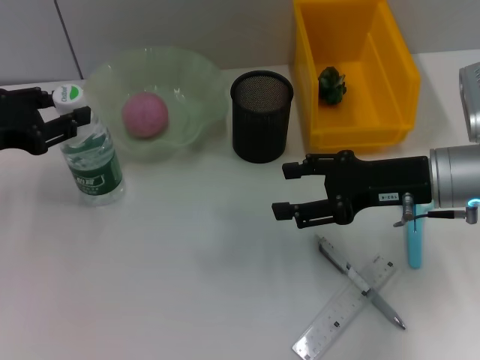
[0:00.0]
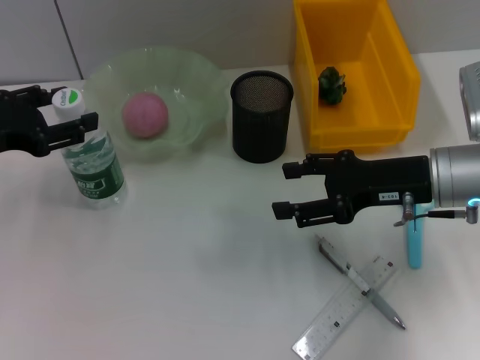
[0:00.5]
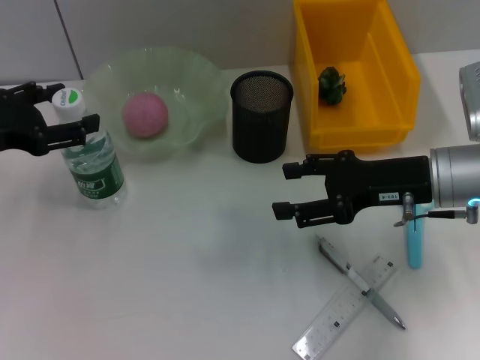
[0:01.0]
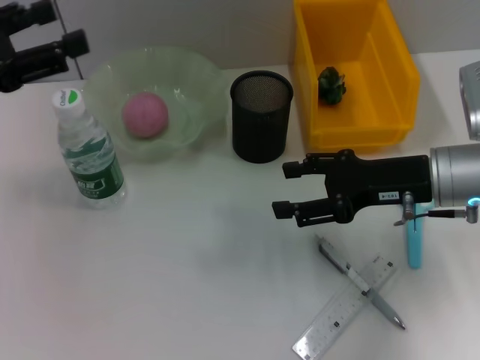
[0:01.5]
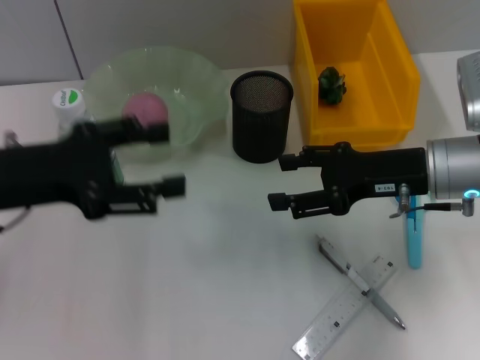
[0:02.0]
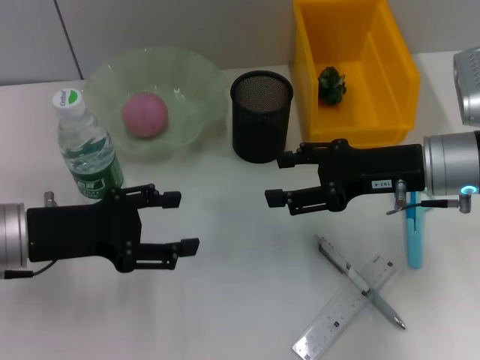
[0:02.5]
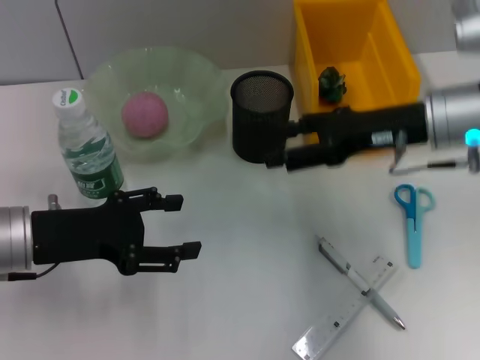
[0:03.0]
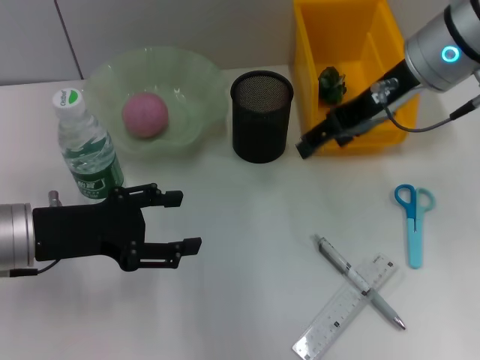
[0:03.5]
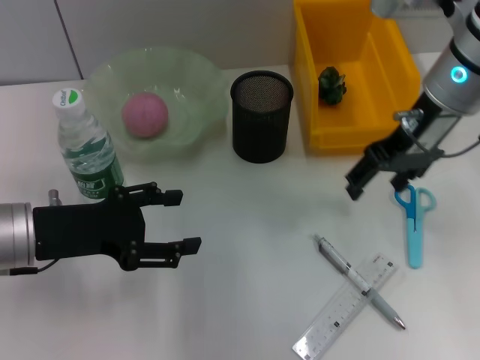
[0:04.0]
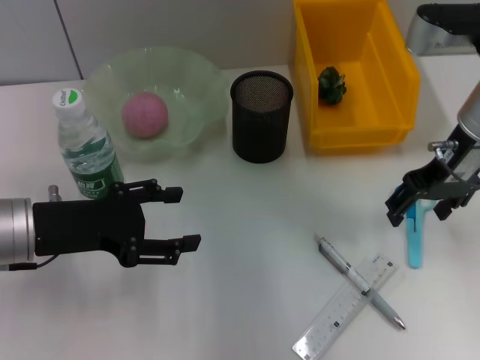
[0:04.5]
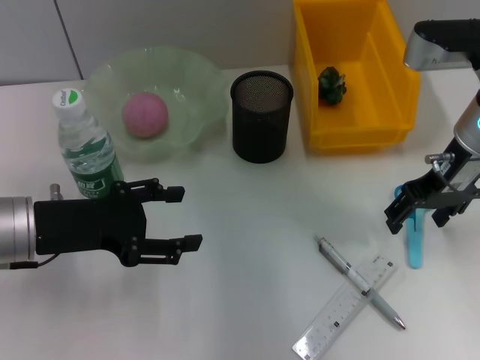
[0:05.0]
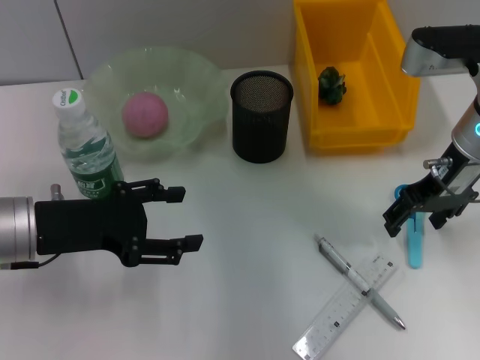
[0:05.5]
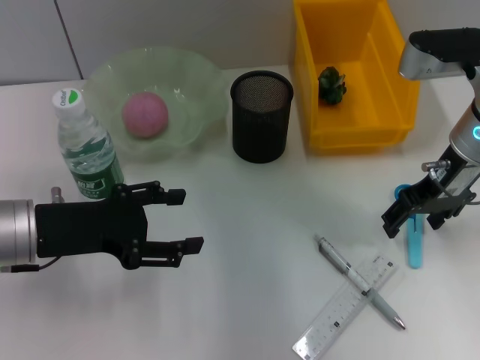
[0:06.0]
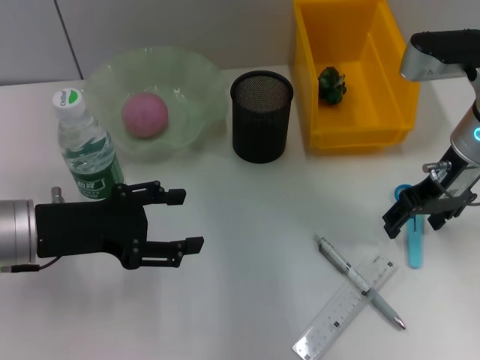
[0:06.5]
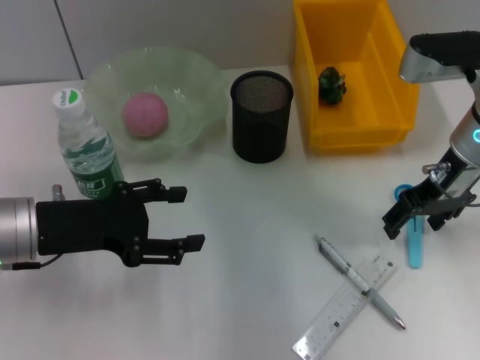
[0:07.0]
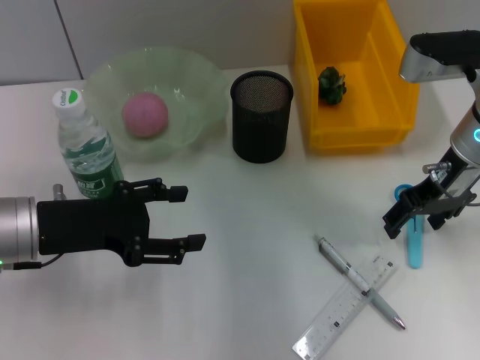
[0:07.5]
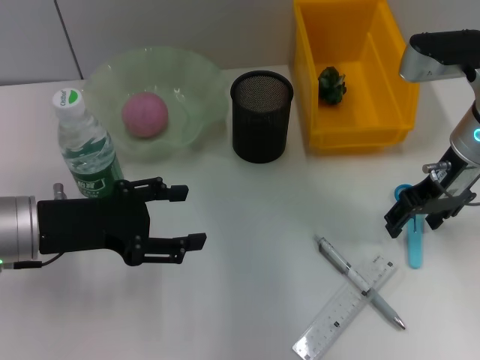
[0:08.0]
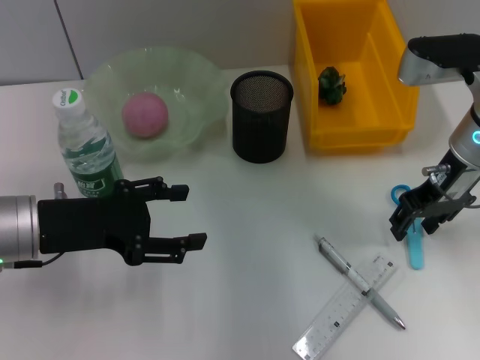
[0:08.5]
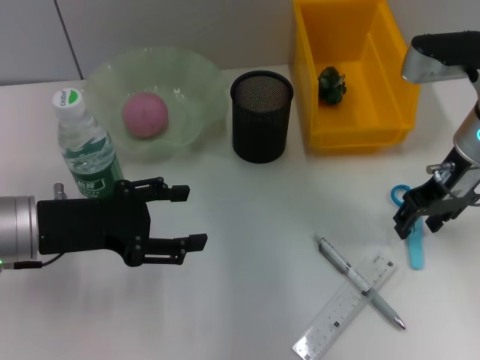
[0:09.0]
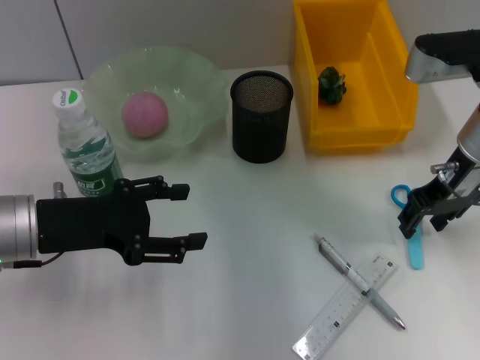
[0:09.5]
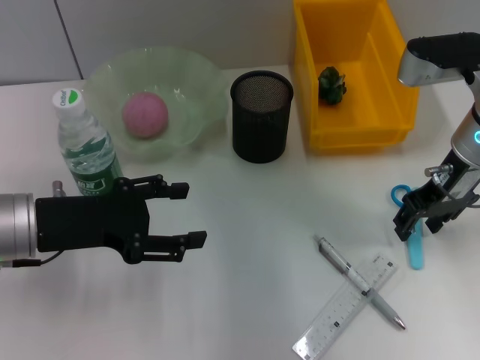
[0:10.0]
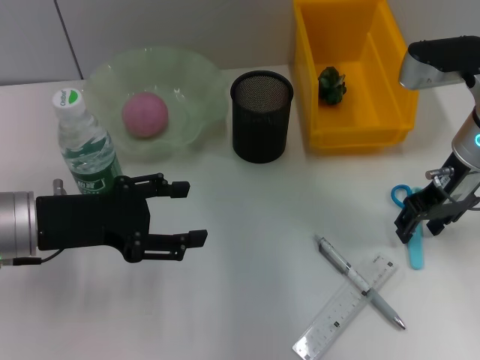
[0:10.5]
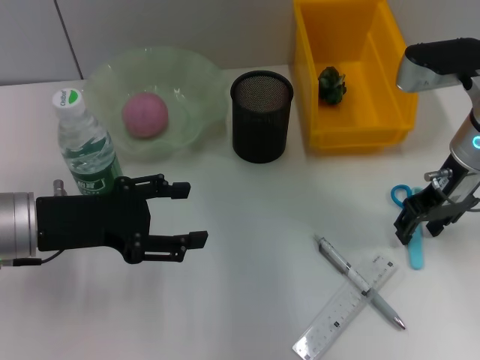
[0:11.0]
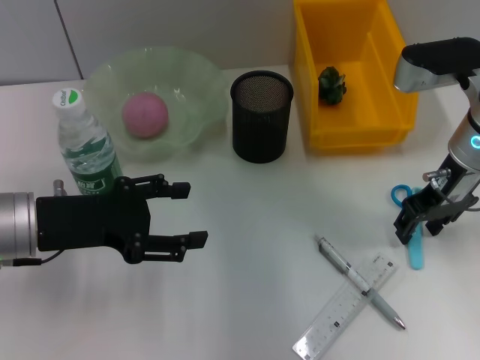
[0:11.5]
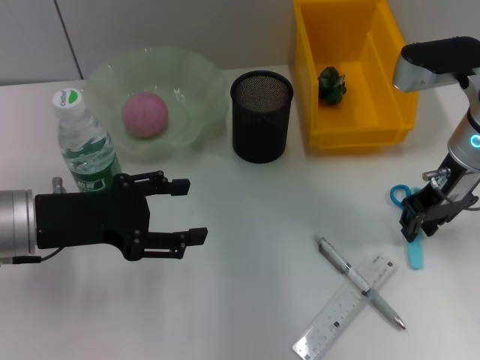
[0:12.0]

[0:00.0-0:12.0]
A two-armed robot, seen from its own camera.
0:00.0 to 0:02.0: The left gripper goes about 5 cm to the right, and opens.
0:02.0 to 0:04.0: The right gripper moves upward and forward, some 10 cm. The left gripper shifts some 5 cm downward.
0:04.0 to 0:06.0: The right gripper travels downward by roughly 5 cm.
0:06.0 to 0:12.0: Both grippers stay put.

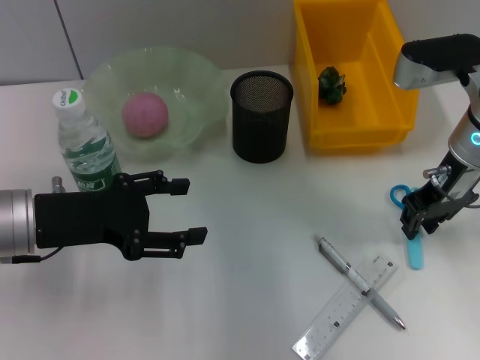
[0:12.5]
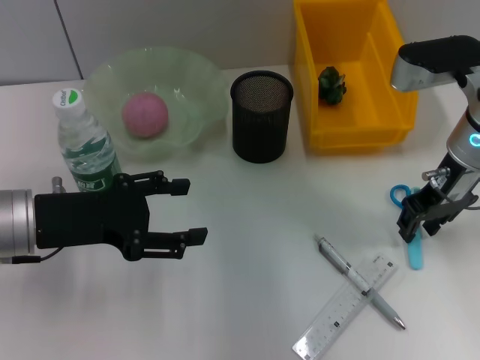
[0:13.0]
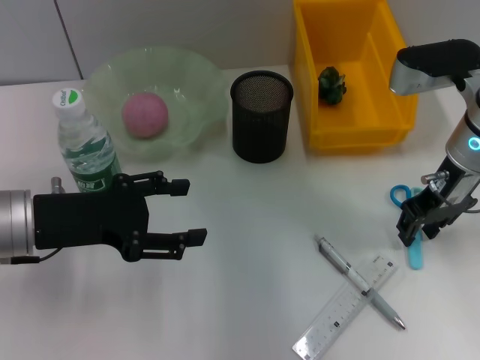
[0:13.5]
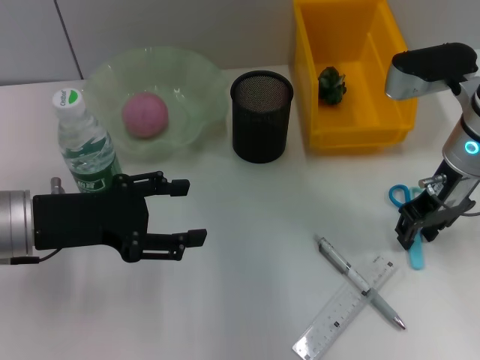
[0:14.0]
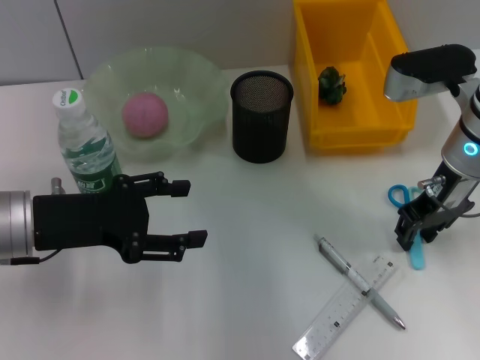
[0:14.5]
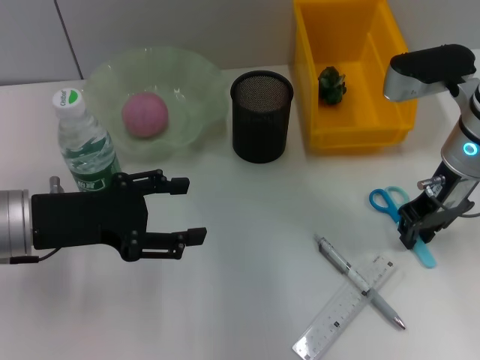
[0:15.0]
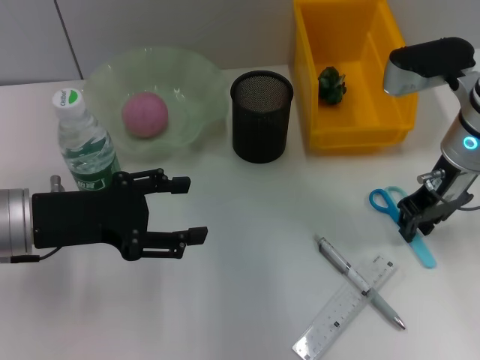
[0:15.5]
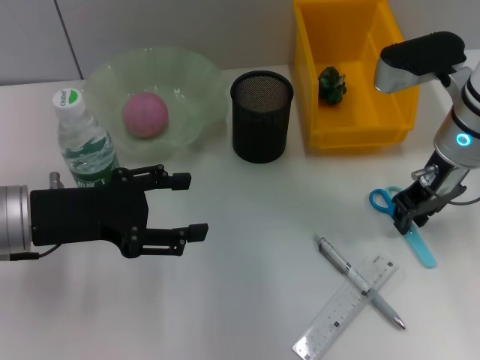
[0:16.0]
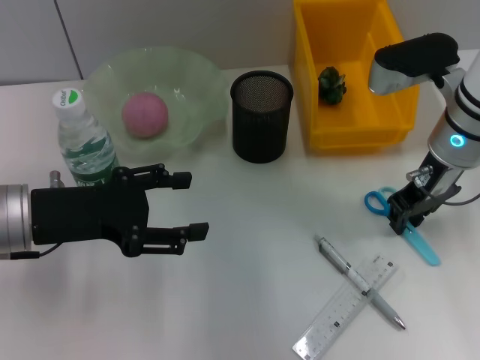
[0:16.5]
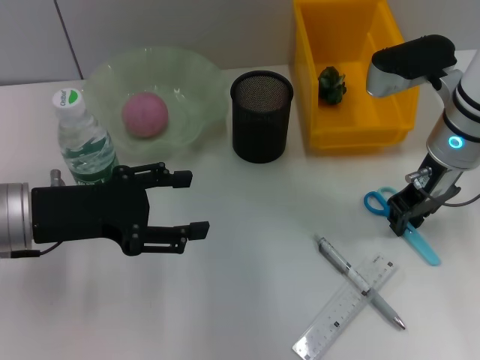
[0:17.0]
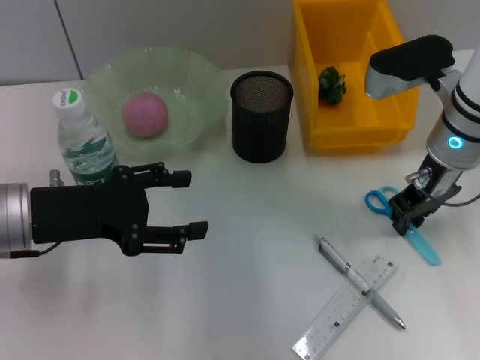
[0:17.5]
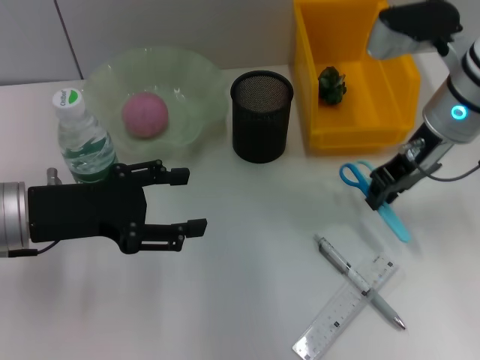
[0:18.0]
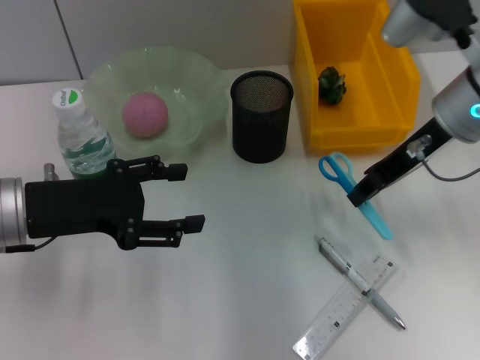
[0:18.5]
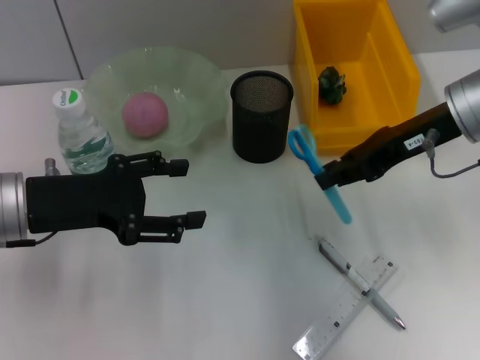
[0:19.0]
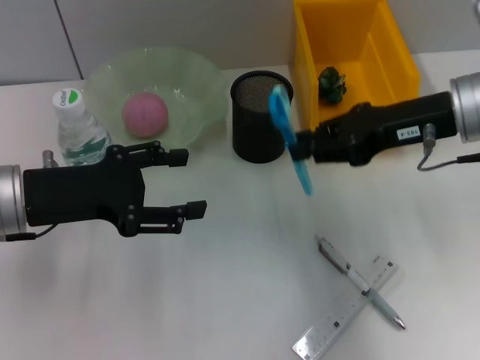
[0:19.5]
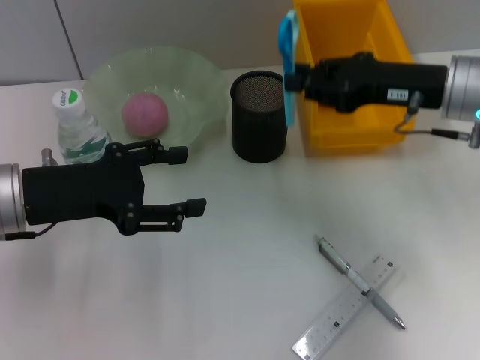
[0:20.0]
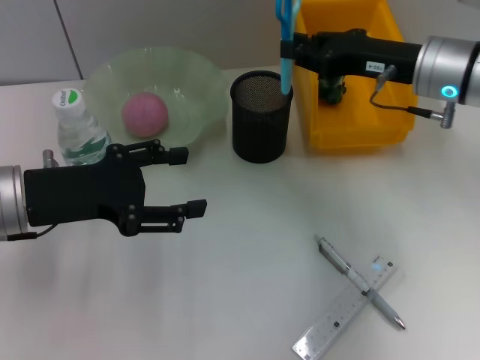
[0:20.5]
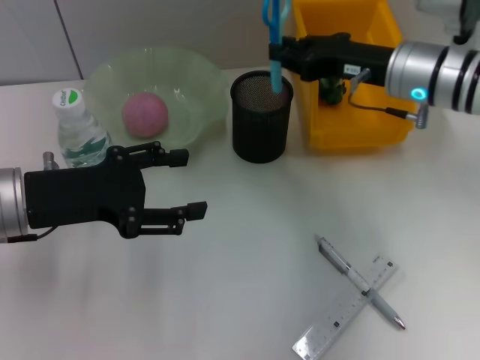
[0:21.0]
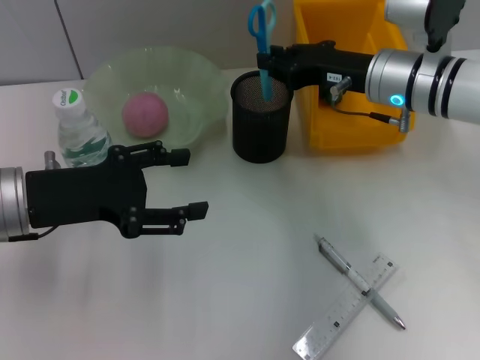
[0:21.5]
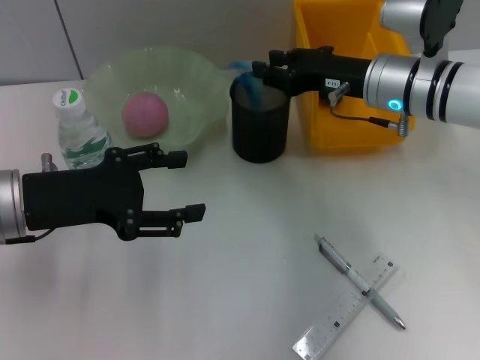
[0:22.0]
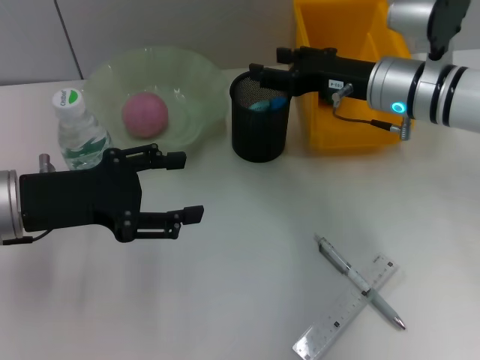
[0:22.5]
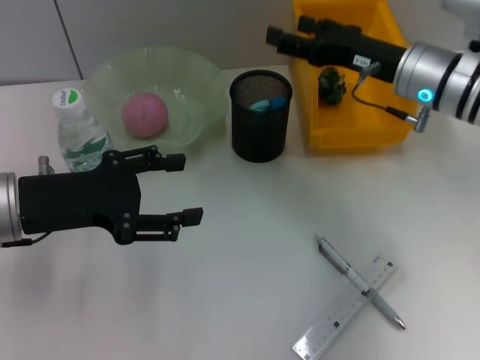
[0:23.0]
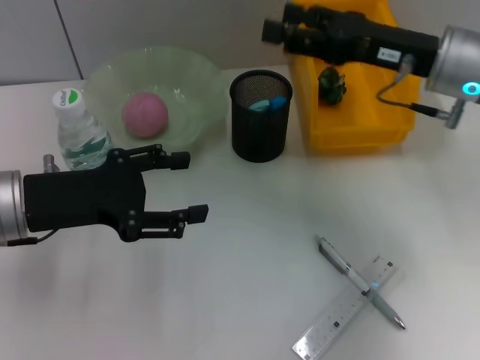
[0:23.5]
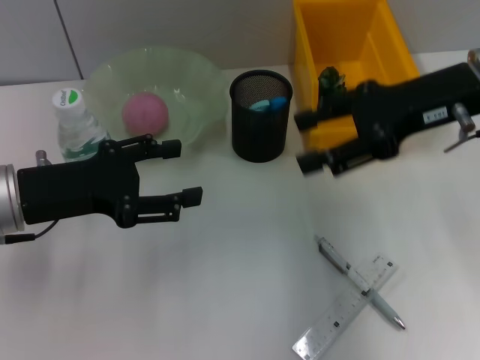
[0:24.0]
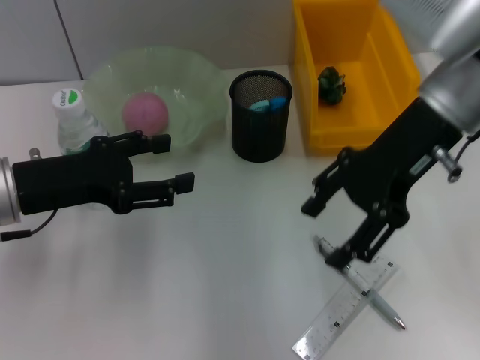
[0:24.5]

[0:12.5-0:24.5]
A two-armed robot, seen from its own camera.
Step, 0:12.5 to 0:17.0: Grab the blue scissors with the right hand.
Step, 0:17.5 to 0:22.0: Place the blue scissors into the pen holder with the right hand.
0:12.5 to 0:14.5: Neither gripper changes place.
0:14.5 to 0:16.5: There are only small adjustments of the grippers.
0:20.5 to 0:22.5: The right gripper opens its fingers.
0:22.5 to 0:24.5: The right gripper shifts about 10 cm upward and backward.

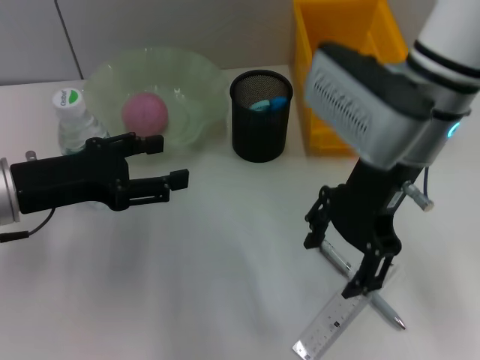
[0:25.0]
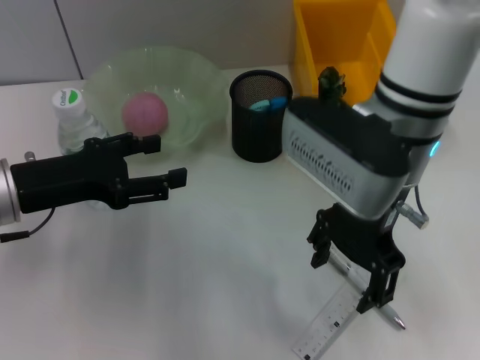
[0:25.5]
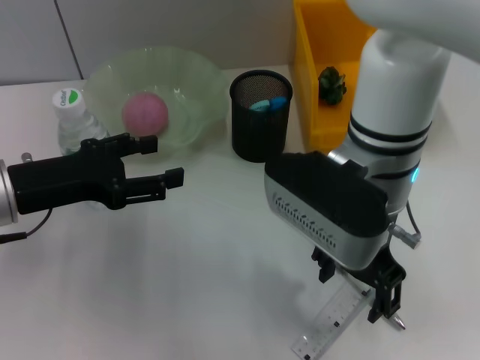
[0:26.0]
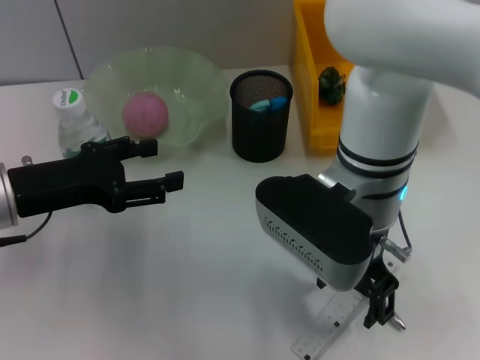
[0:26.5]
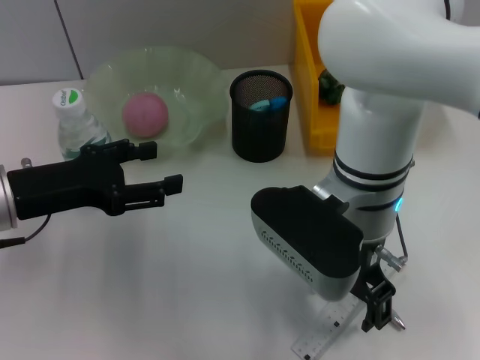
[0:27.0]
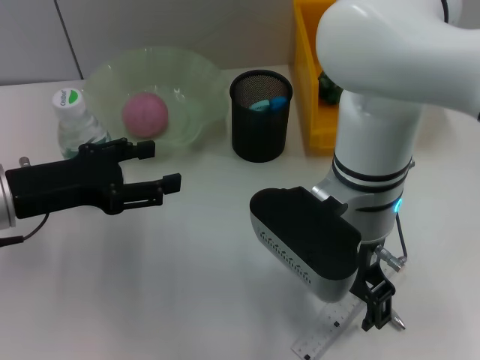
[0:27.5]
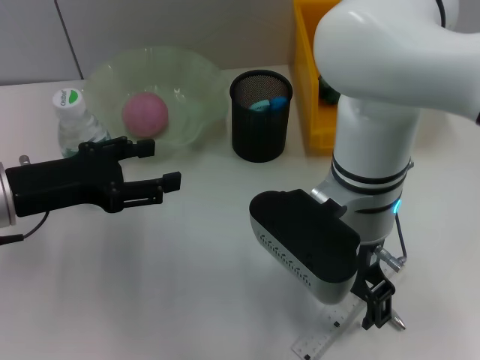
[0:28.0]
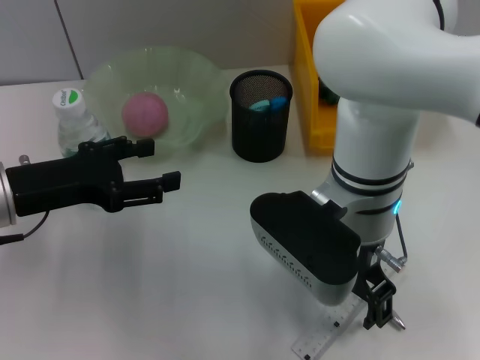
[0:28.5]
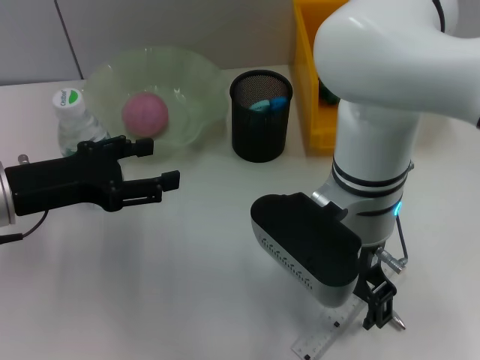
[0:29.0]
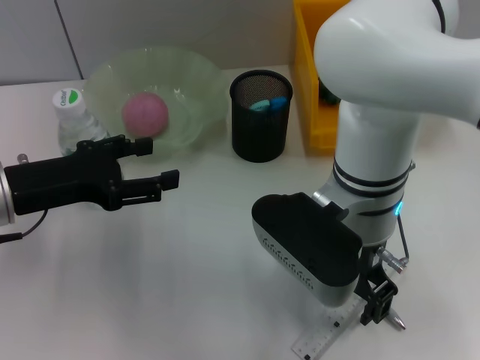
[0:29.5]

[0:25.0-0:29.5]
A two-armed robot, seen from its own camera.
0:25.0 to 0:27.0: The right gripper travels downward by about 5 cm.
0:27.0 to 0:29.5: Both grippers stay put.
